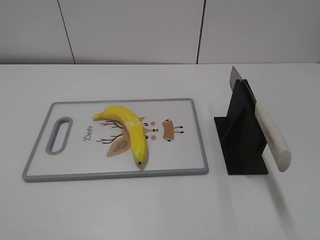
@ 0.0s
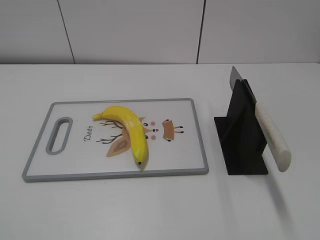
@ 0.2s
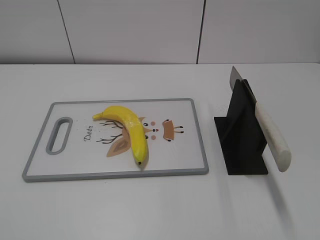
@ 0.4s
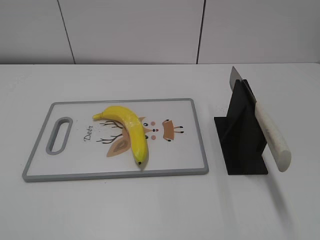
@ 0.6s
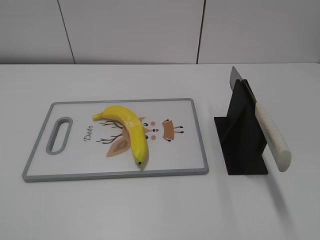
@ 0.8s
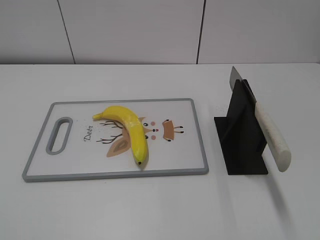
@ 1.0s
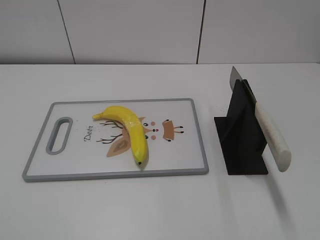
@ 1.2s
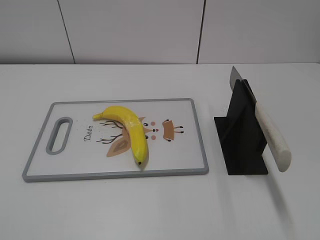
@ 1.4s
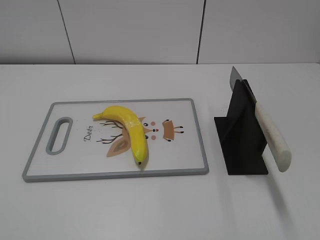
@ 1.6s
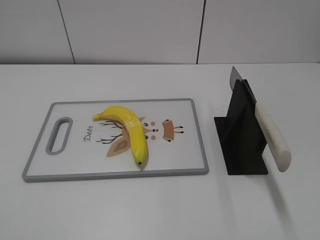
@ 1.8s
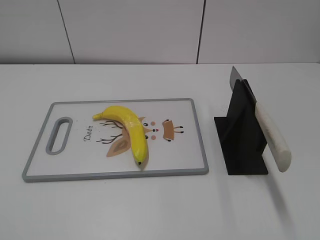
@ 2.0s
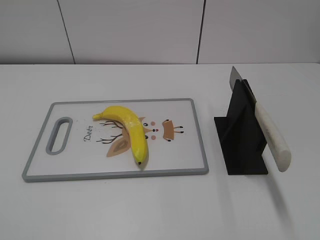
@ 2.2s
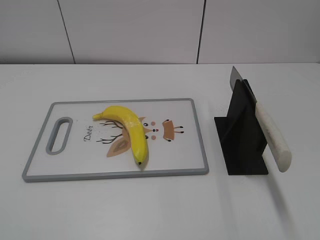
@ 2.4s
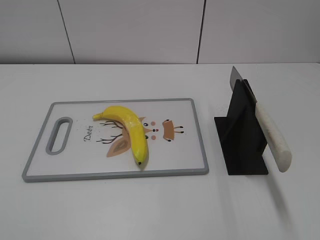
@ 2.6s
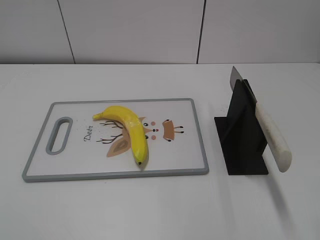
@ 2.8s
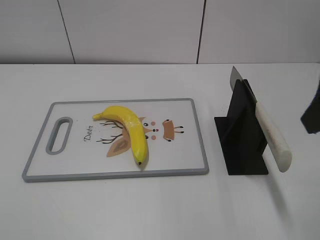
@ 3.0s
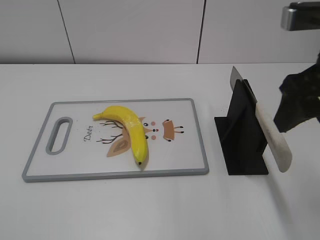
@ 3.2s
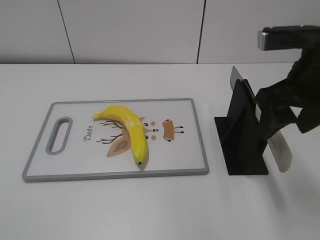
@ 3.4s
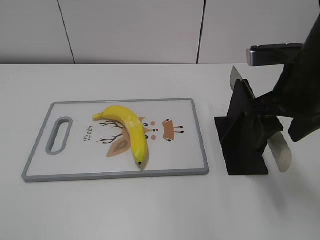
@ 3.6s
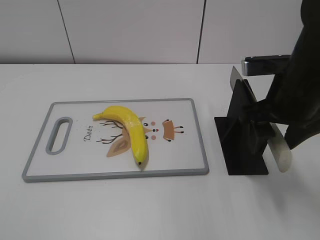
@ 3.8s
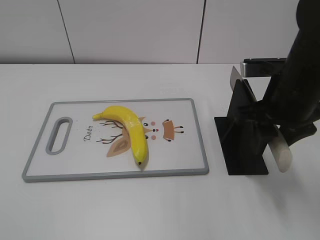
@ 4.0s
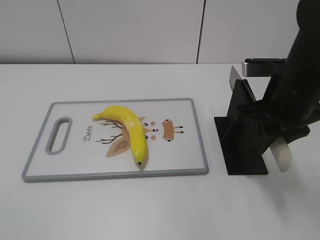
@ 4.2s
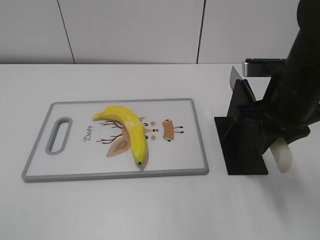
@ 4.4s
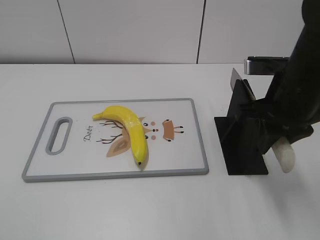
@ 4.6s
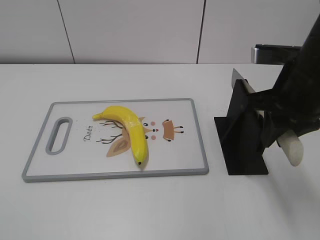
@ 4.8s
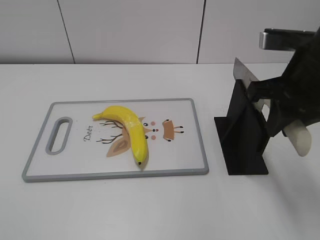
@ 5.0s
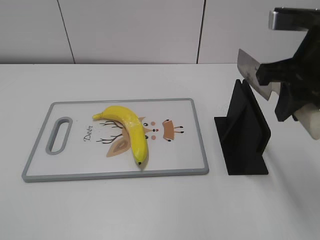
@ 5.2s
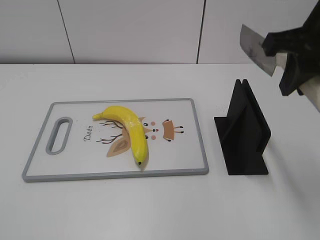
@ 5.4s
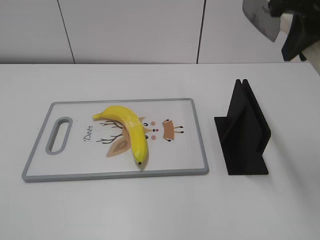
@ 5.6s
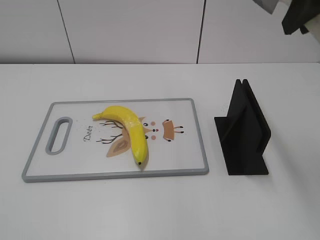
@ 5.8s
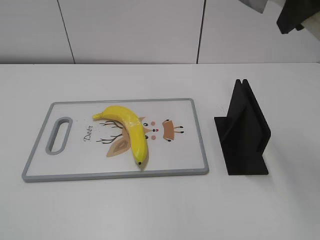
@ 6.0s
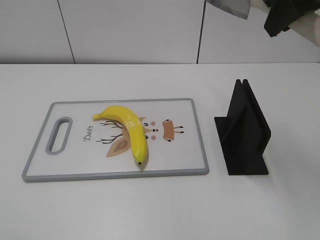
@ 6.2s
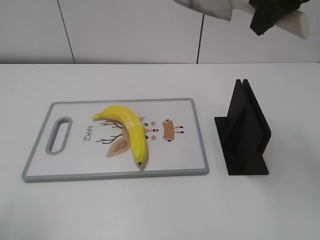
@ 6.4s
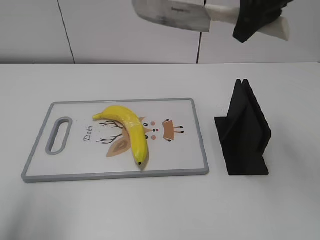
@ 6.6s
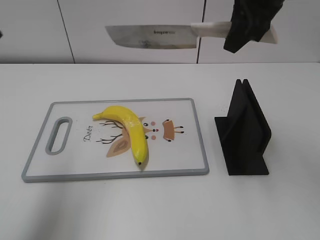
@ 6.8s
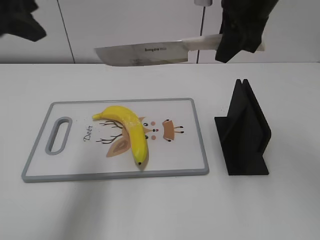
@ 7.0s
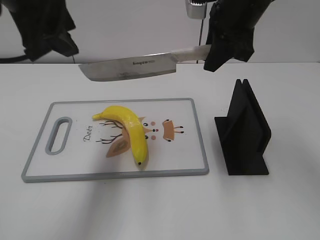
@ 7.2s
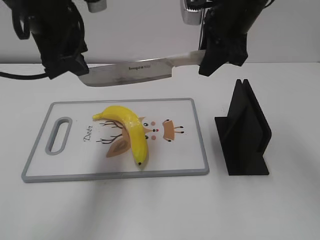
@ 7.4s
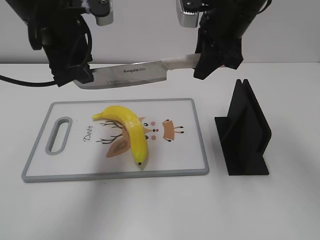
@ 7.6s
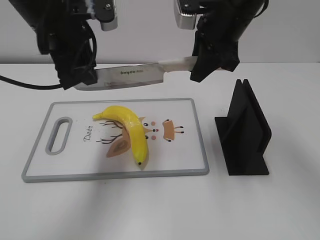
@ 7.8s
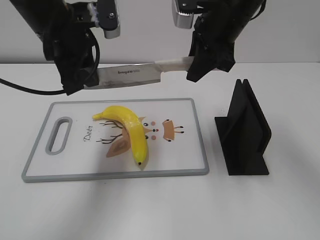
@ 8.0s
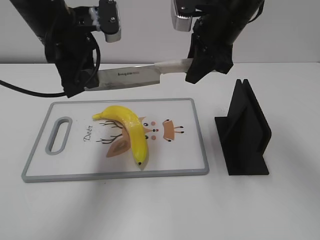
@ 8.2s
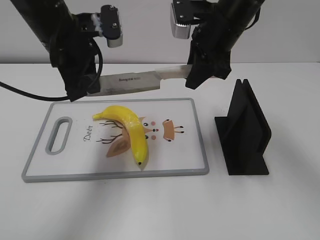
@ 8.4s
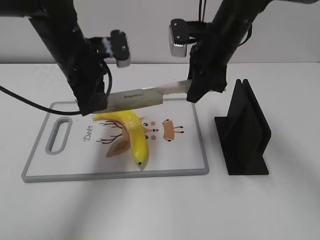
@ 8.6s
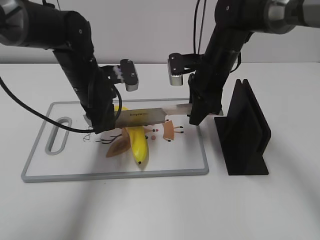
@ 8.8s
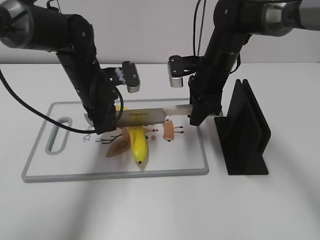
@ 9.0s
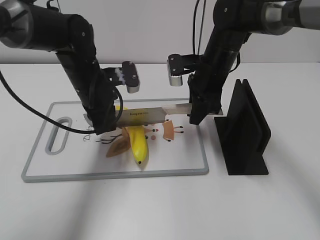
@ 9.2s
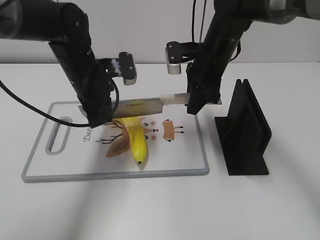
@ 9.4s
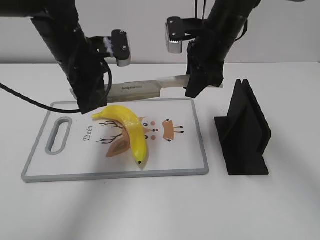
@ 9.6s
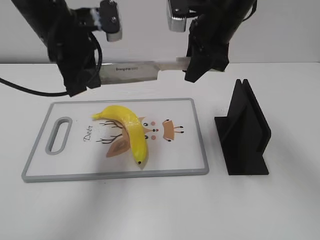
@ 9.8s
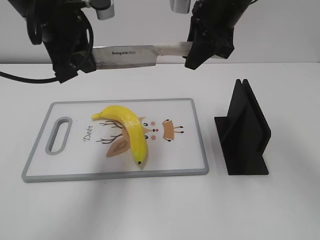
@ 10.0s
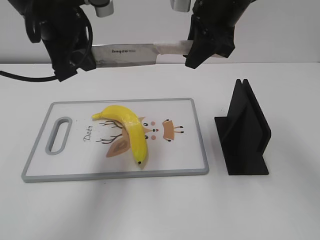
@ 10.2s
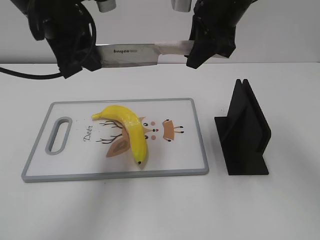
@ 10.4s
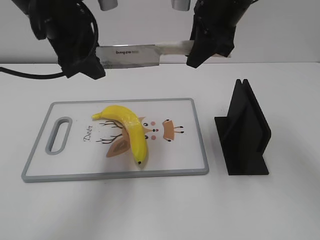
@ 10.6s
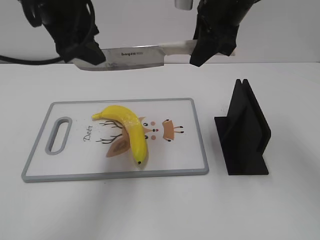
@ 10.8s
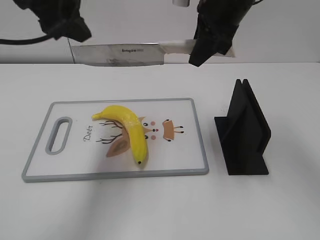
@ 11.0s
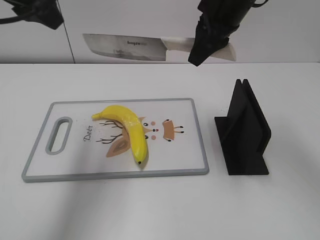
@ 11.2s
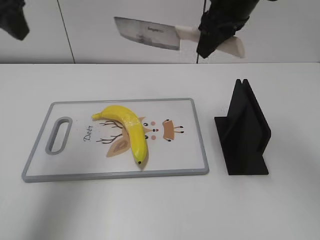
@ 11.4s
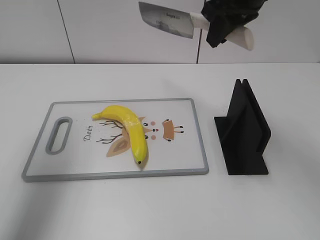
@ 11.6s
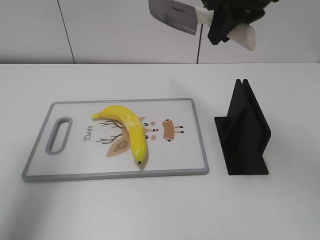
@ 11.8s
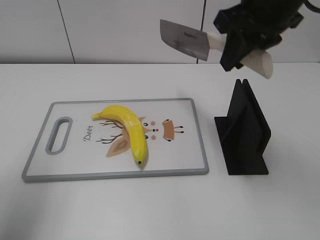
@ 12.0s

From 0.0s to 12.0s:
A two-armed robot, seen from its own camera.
Task of the whole recording: cut plastic banana.
Step, from 0.0s to 5.0s: Grab the knife handle with your right hand.
Step, from 5.2s to 10.0s: Lift the knife with your right hand.
Step, from 10.2s to 11.4s: Cut the banana with your right hand.
From 1.6s to 3.0s: The right gripper is displaced forward and to the left by roughly 20 cm.
From 3.0s to 4.4s: The right gripper travels downward and forward by about 15 cm, and closes its fingers.
From 4.4s to 6.0s: The right gripper heads upward, covering approximately 15 cm.
From 6.0s to 7.6s: The right gripper is displaced downward, forward and to the left by approximately 15 cm. Meanwhile the left gripper heads forward and to the right, covering approximately 35 cm.
From 7.6s to 9.0s: Both grippers move downward, roughly 15 cm. The left gripper closes.
From 9.0s to 10.4s: Both grippers move upward, roughly 15 cm.
From 10.4s to 12.0s: The left gripper moves to the left and backward, about 20 cm, and opens its fingers. The right gripper moves backward, roughly 5 cm.

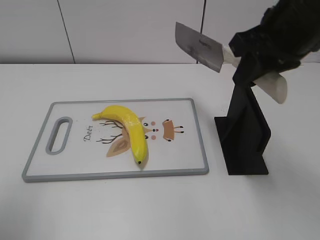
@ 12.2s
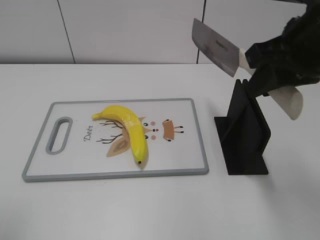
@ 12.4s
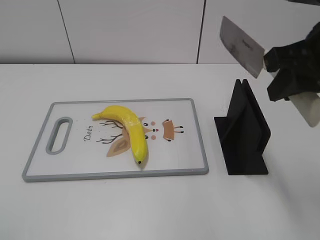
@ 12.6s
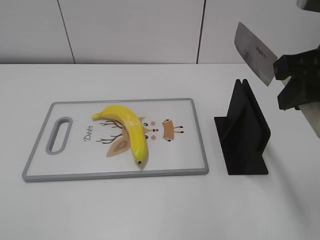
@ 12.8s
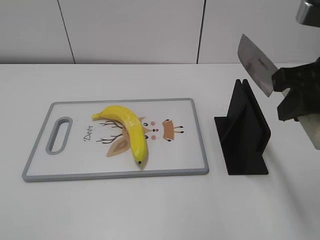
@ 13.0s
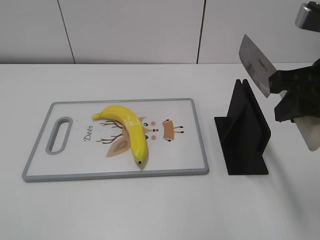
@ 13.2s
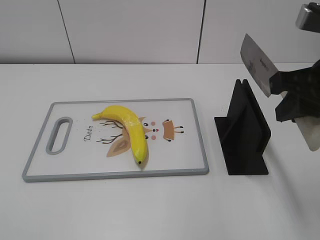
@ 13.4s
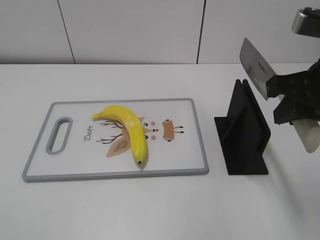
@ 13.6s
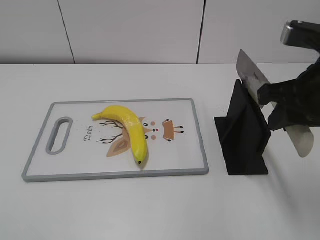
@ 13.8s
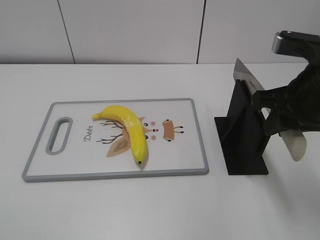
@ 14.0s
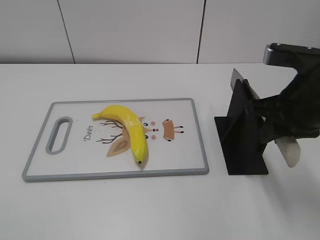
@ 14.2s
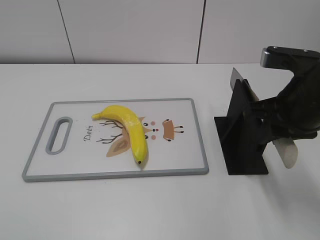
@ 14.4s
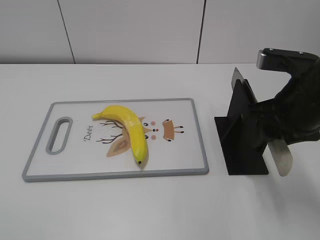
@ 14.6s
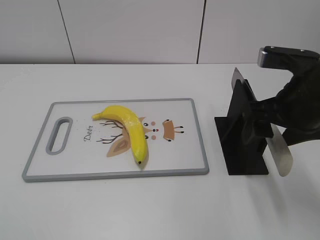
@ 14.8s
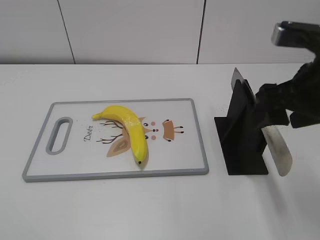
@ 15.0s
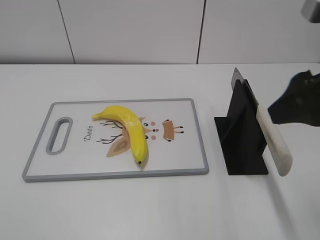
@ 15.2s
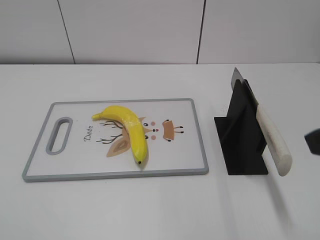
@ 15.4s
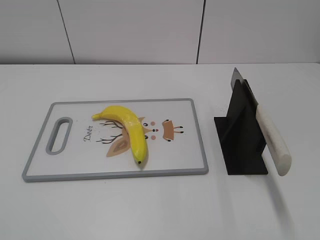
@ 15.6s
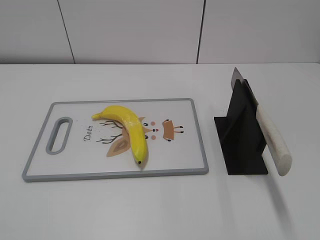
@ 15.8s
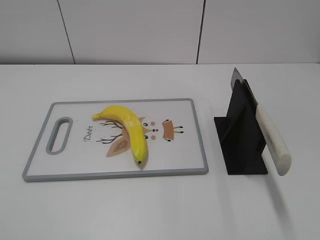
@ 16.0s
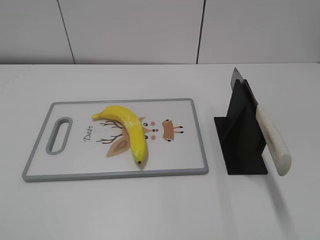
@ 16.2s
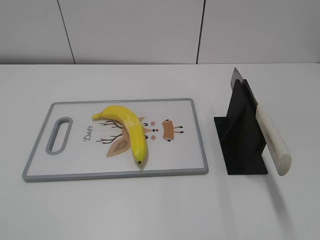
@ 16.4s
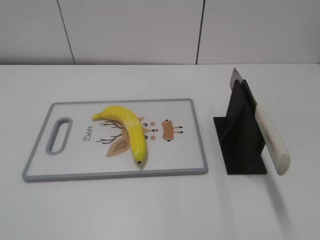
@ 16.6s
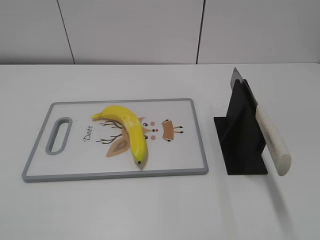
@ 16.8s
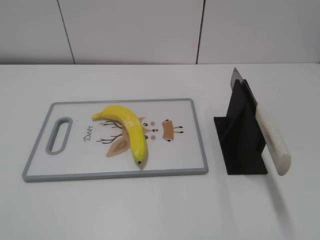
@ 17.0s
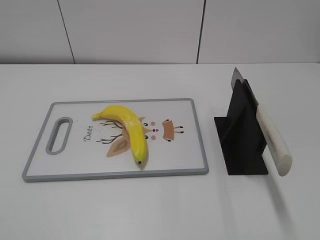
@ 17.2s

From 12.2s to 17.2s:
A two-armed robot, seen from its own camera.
Task of the whole recording: cut plastic banana.
Step, from 12.8s to 17.2s: Place the knife on the storage rack with your right hand.
From 12.2s to 13.8s: The right gripper is displaced downward by approximately 5 cm. The left gripper moves backward, about 15 cm.
From 13.8s to 15.6s: The right gripper travels backward by about 15 cm, and opens.

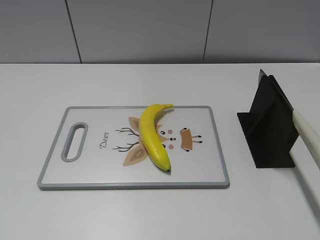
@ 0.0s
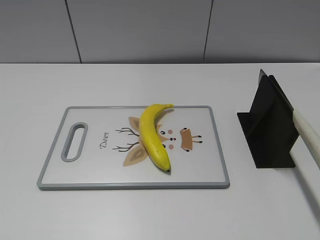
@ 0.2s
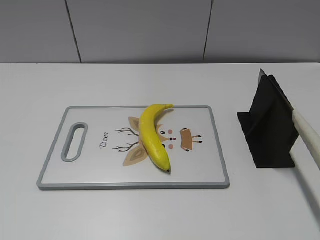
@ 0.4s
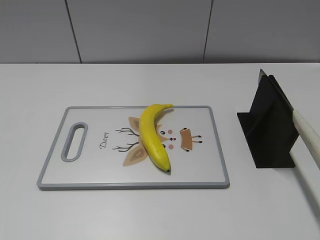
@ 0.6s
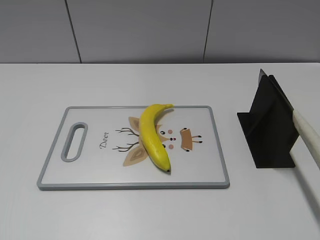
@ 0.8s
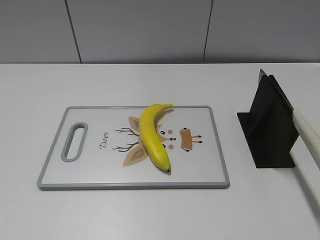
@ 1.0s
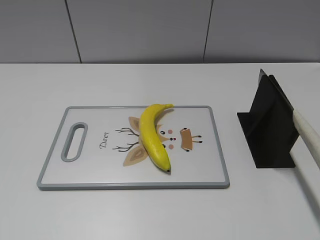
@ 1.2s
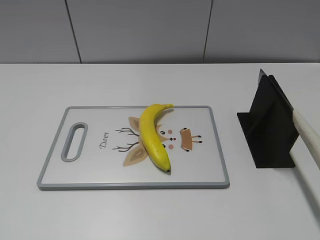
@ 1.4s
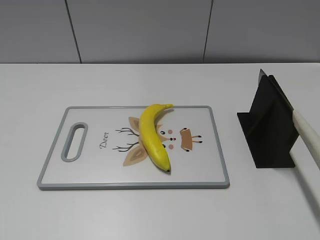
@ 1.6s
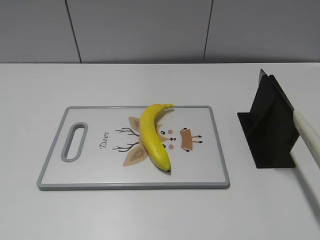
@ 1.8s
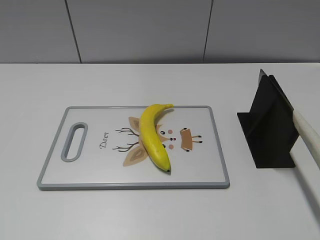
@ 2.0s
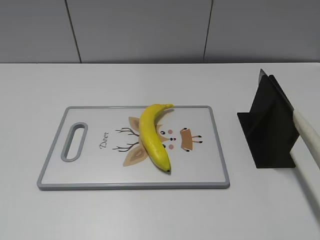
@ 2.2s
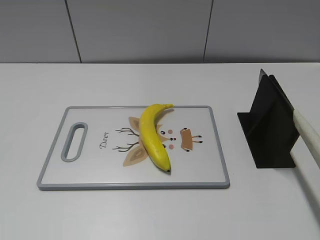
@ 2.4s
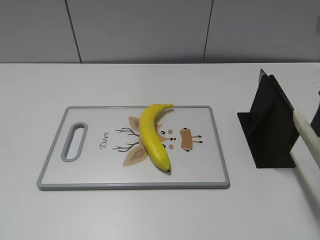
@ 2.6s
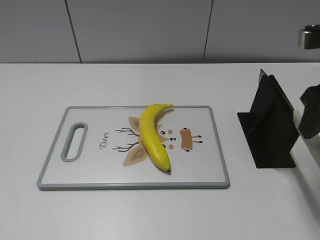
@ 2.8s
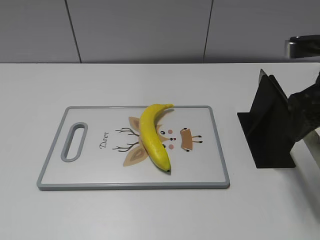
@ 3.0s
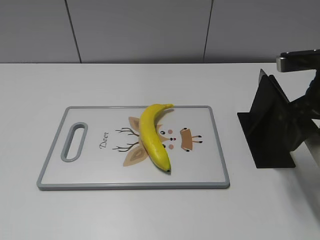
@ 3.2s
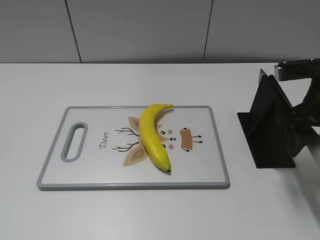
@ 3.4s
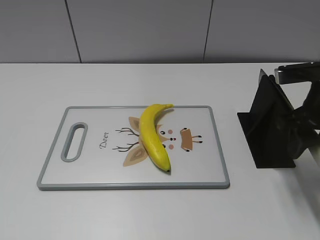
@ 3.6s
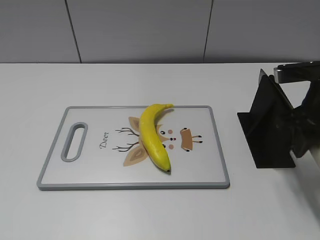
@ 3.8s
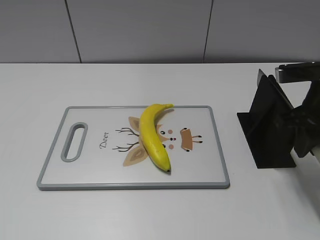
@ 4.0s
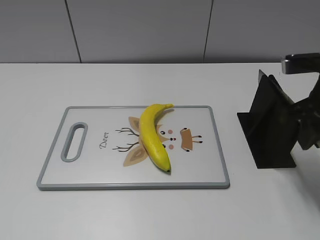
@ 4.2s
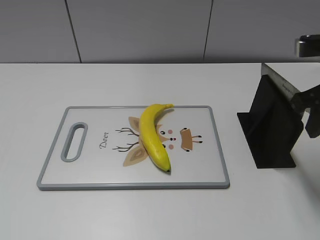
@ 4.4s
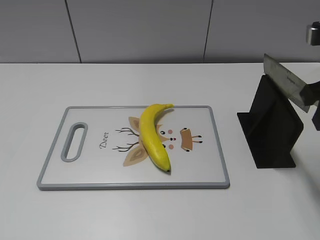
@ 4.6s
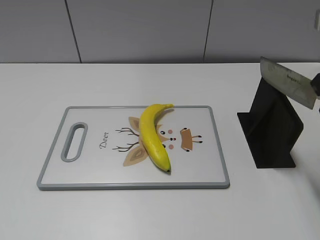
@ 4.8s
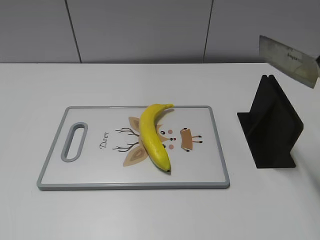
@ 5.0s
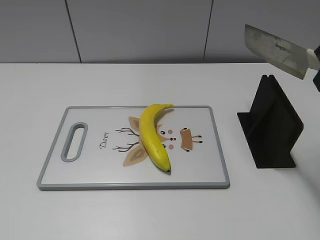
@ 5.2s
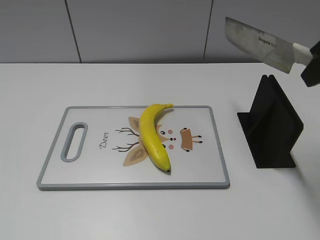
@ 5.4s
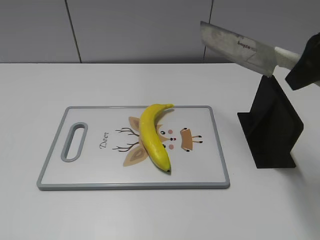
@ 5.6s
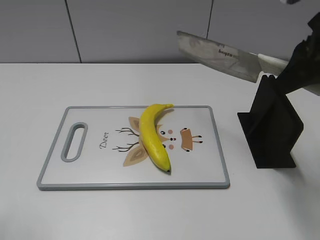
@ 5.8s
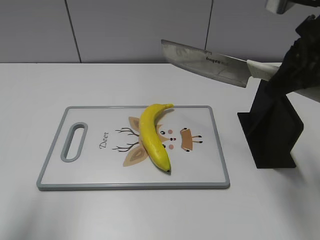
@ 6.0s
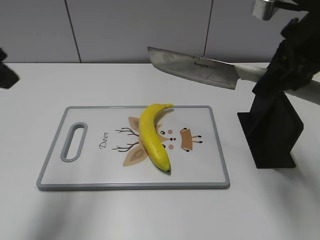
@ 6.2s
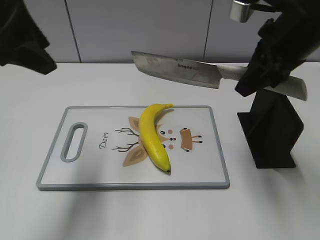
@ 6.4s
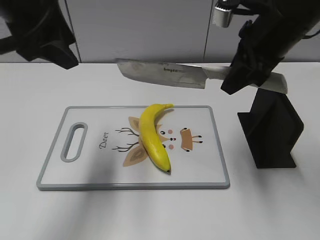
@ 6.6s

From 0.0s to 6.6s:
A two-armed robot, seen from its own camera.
Task of the whole recording: cut plastic banana.
Step, from 0.0s to 5.0s: Grab the knife handle with your right hand.
From 1.6s to 3.2s: The right gripper is displaced forward by approximately 25 cm.
From 3.2s to 5.0s: The right gripper goes roughly 10 cm upward, and closes.
From 5.0s to 6.6s: The right gripper goes roughly 10 cm to the left and forward, while the left gripper is displaced forward and to the right by approximately 35 cm.
